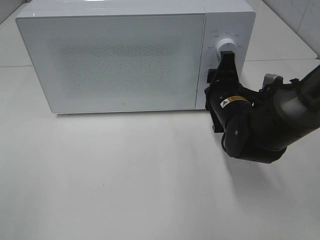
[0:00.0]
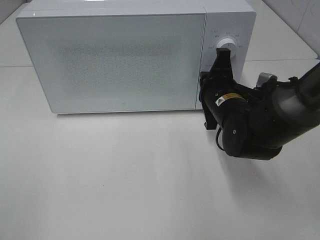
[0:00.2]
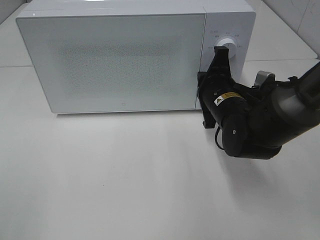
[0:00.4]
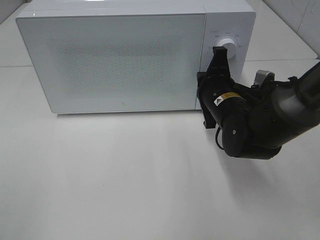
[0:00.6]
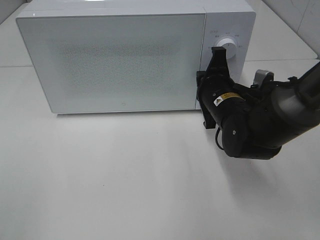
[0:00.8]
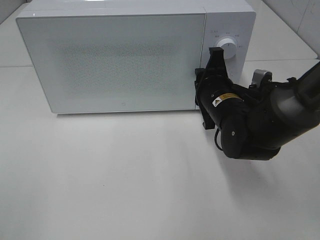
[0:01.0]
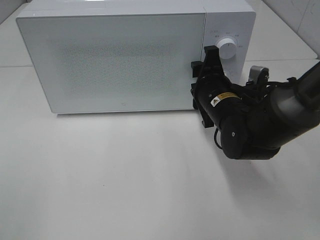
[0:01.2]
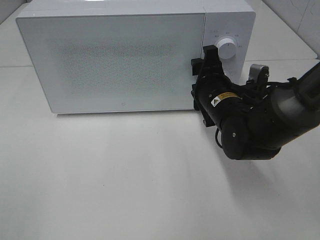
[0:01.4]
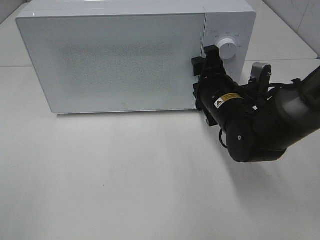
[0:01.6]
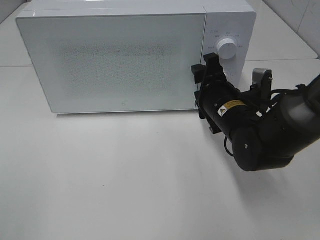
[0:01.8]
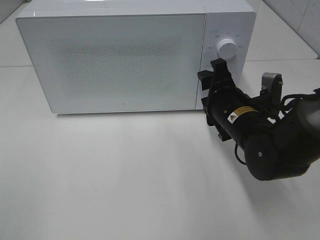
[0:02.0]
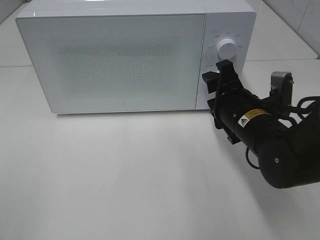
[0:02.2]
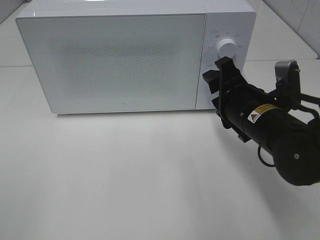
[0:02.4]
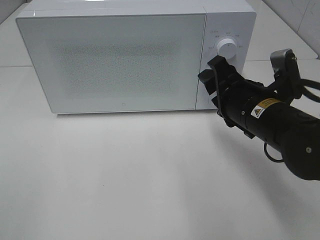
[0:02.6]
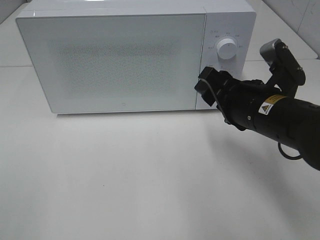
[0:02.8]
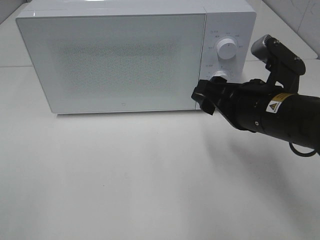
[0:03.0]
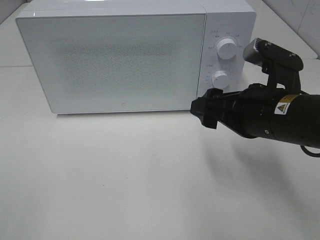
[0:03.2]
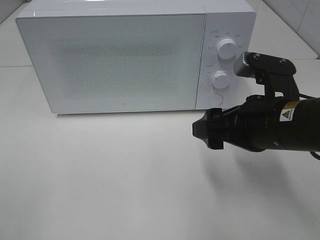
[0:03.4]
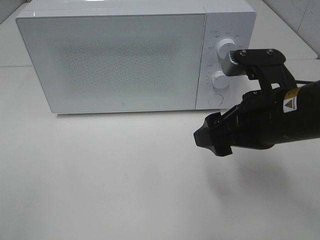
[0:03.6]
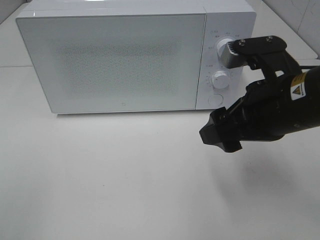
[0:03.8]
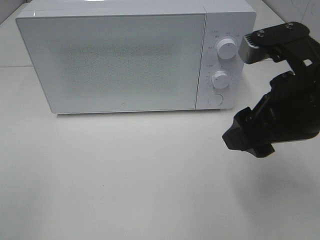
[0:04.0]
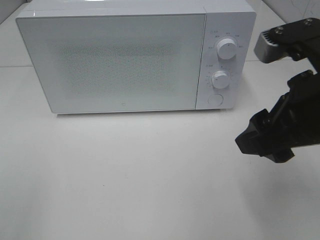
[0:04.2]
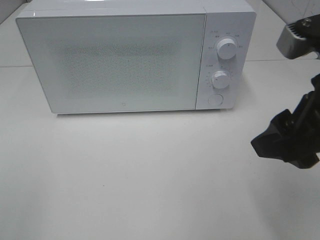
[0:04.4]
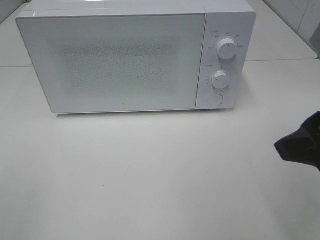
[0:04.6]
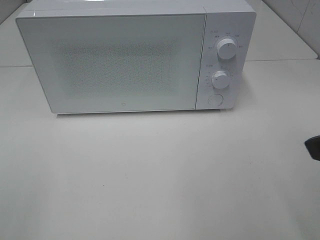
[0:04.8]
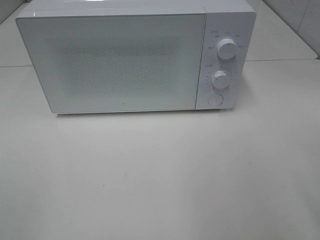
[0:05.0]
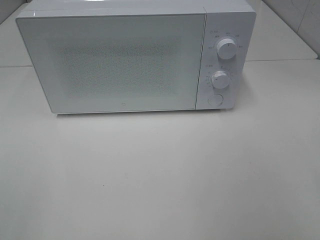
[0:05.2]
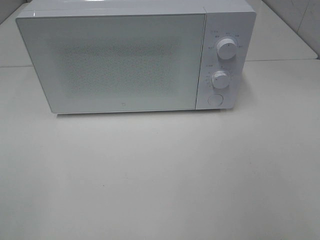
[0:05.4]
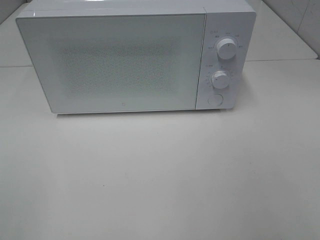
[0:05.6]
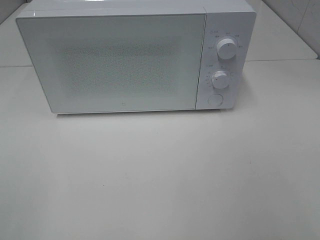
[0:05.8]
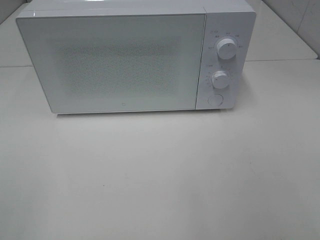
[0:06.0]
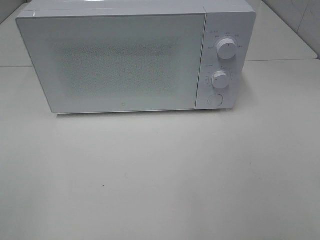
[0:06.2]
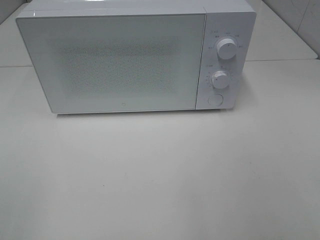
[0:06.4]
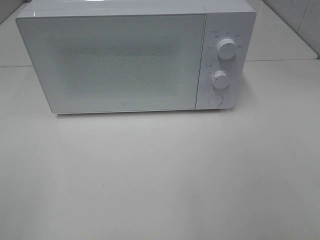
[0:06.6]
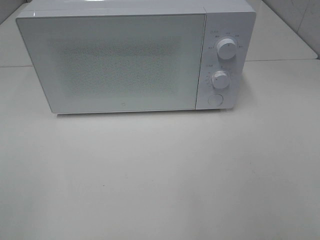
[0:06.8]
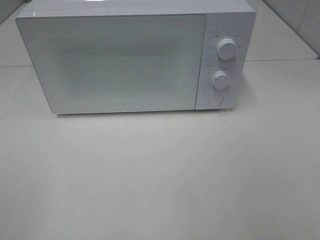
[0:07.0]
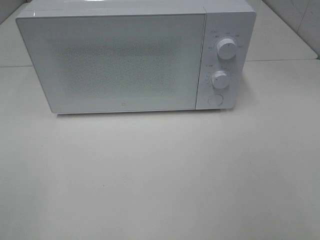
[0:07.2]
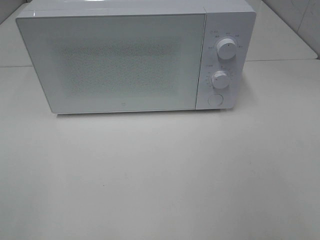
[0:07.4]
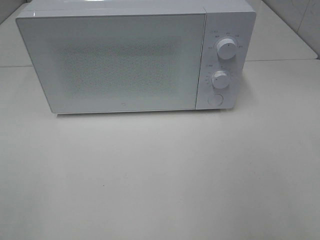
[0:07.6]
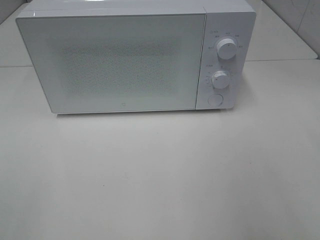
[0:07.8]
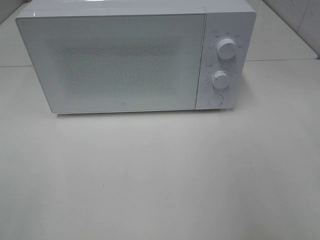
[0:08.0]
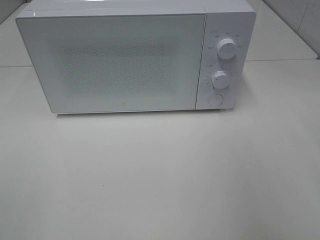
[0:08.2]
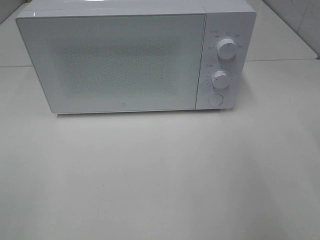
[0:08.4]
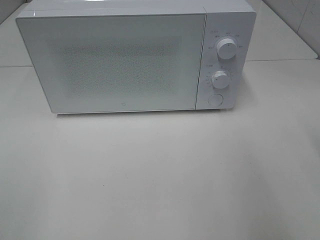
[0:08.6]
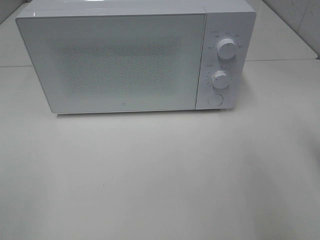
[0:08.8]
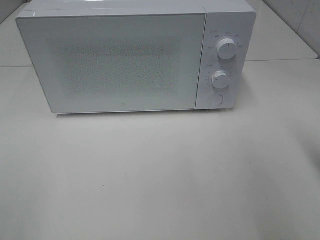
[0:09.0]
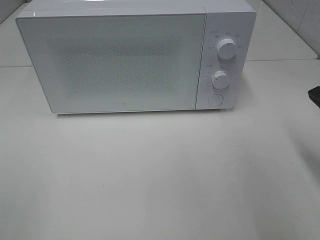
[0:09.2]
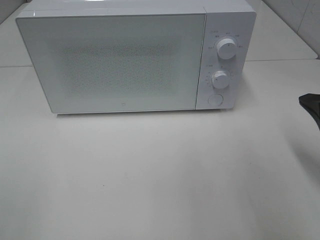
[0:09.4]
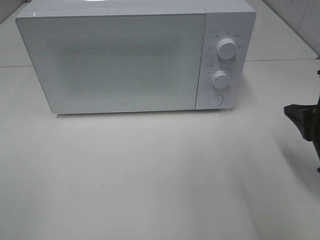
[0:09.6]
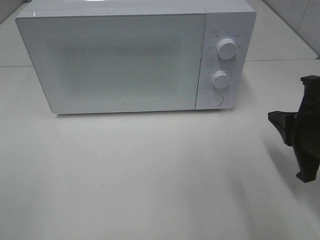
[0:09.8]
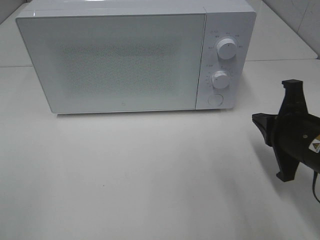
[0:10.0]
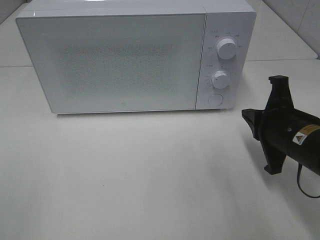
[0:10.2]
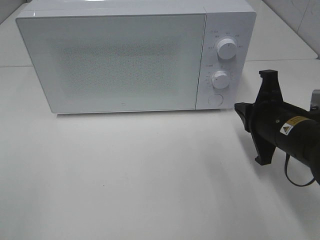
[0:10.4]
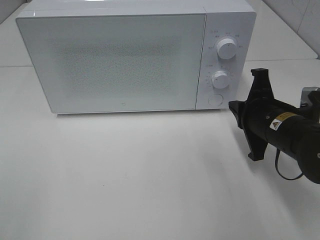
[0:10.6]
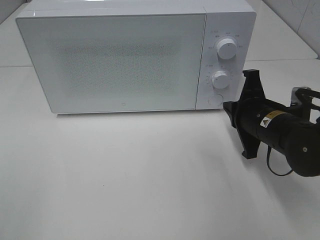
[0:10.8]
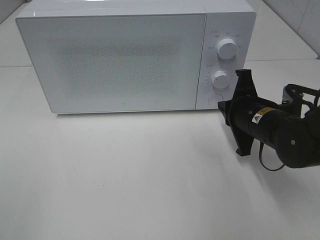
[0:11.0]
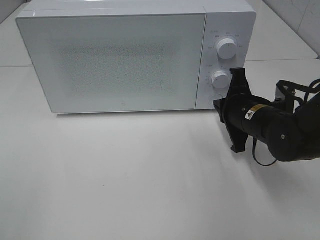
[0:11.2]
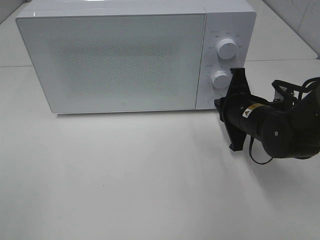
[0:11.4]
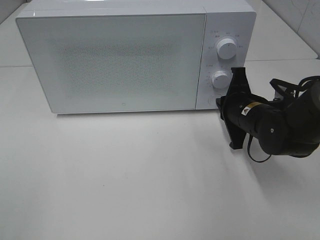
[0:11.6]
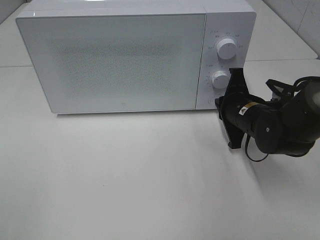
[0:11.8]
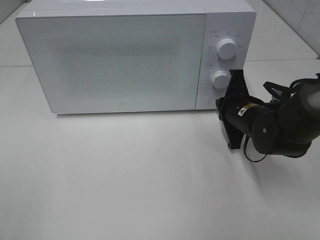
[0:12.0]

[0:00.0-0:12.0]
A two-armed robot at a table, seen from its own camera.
Task of the whole recording: Heat the burger.
0:00.0 to 0:01.6: The right gripper closes, then reopens.
0:01.6 to 0:03.0: The right gripper is displaced backward and upward by roughly 10 cm.
0:03.0 to 0:04.4: The right gripper travels upward and backward by approximately 10 cm.
0:04.4 to 0:06.0: The right gripper travels backward and to the right by about 20 cm.
0:09.0 to 0:10.4: The right gripper travels to the left, downward and forward by approximately 15 cm.
0:10.4 to 0:12.0: The right gripper goes about 10 cm forward.

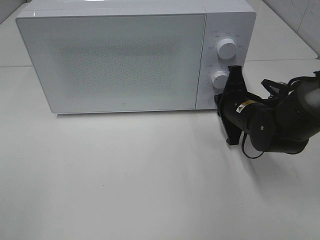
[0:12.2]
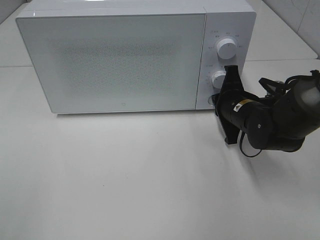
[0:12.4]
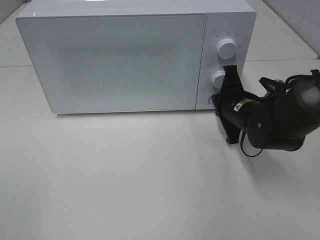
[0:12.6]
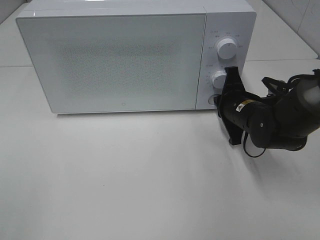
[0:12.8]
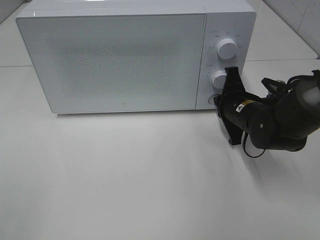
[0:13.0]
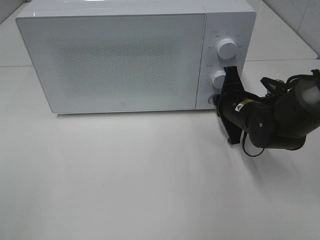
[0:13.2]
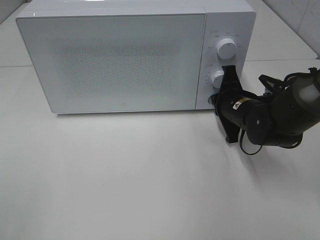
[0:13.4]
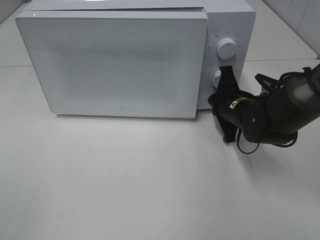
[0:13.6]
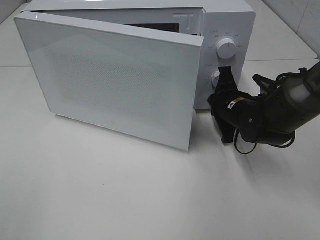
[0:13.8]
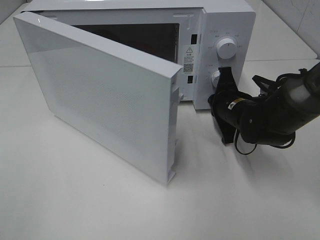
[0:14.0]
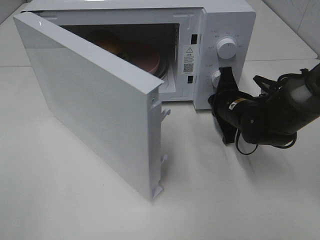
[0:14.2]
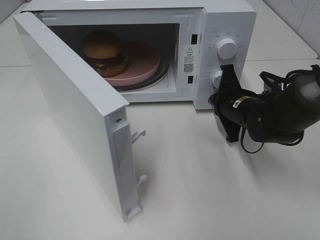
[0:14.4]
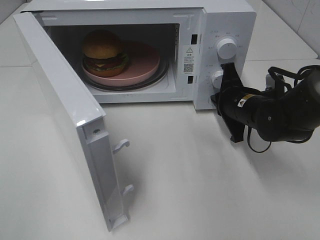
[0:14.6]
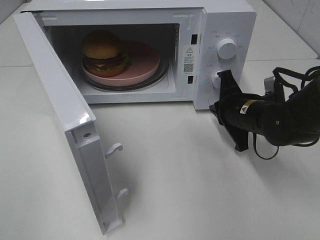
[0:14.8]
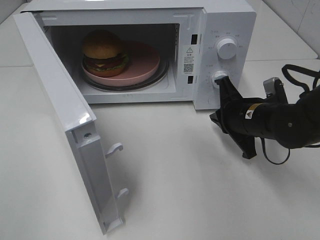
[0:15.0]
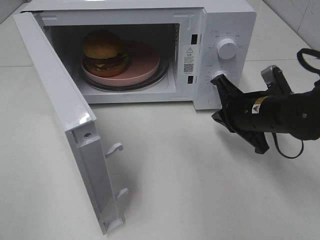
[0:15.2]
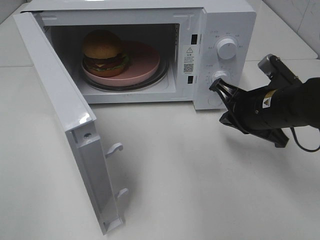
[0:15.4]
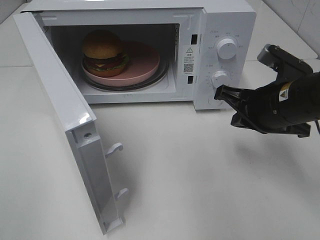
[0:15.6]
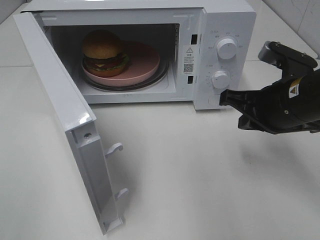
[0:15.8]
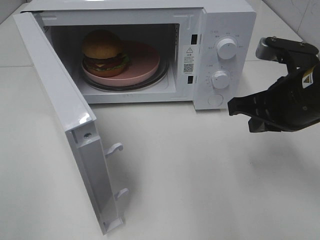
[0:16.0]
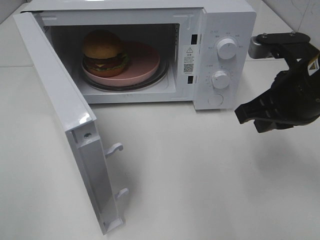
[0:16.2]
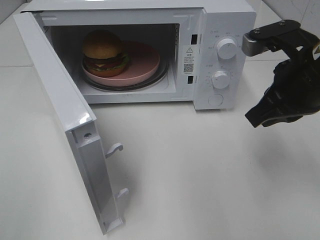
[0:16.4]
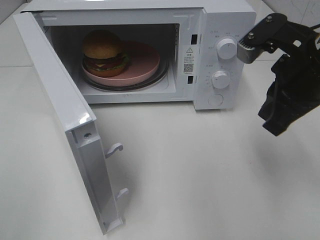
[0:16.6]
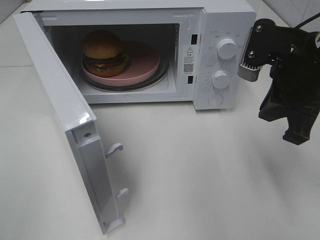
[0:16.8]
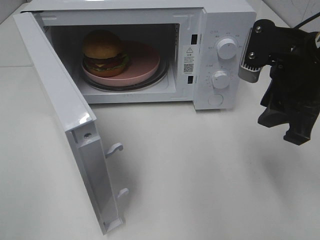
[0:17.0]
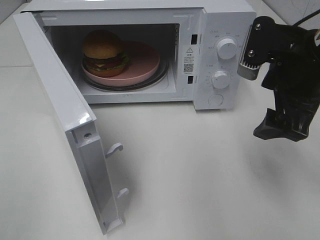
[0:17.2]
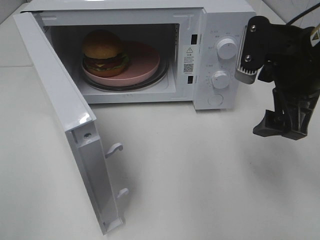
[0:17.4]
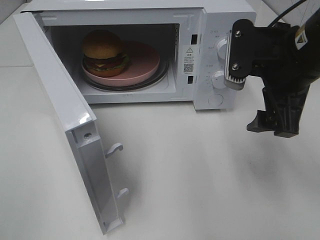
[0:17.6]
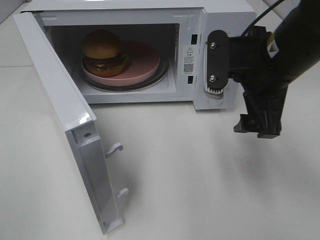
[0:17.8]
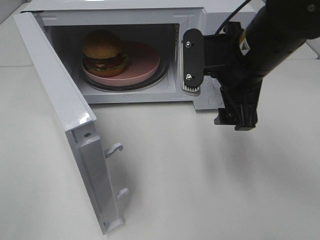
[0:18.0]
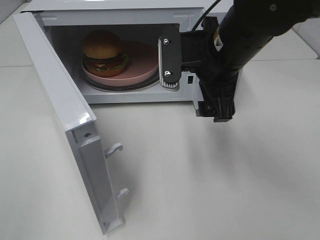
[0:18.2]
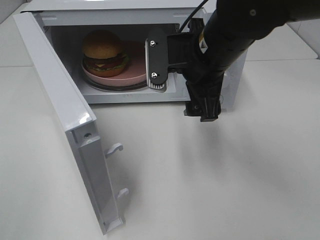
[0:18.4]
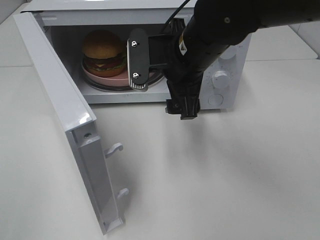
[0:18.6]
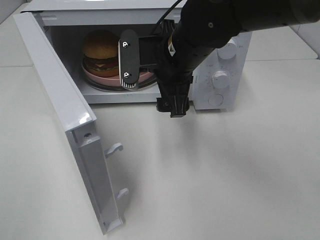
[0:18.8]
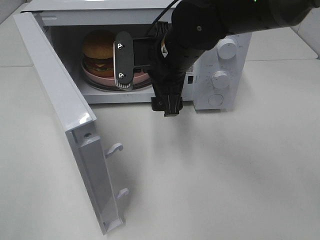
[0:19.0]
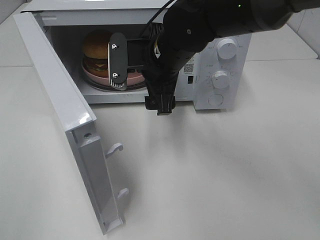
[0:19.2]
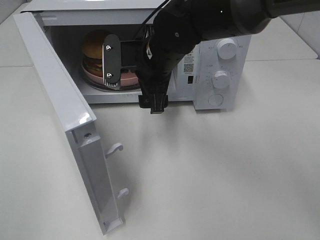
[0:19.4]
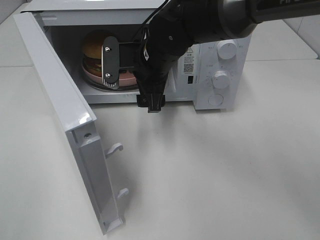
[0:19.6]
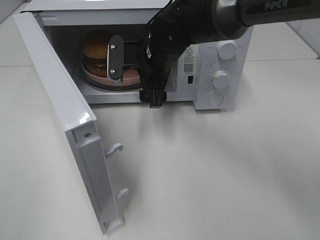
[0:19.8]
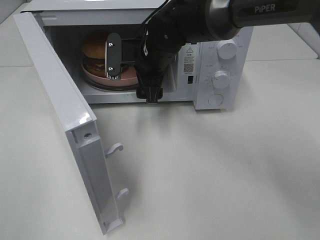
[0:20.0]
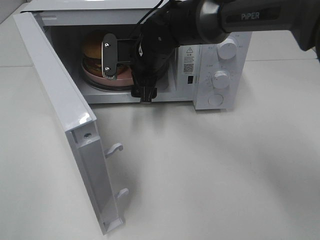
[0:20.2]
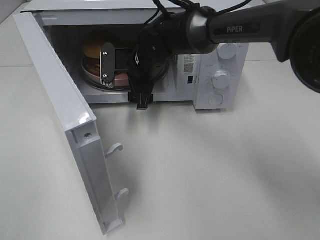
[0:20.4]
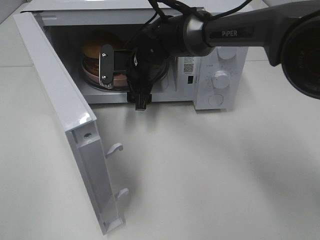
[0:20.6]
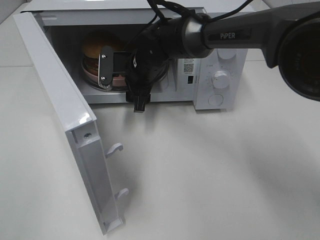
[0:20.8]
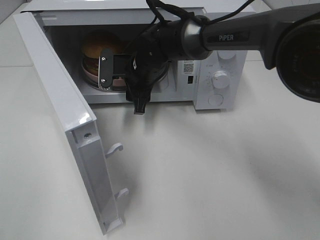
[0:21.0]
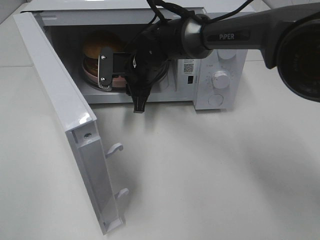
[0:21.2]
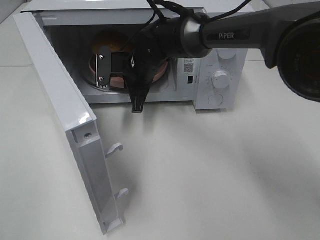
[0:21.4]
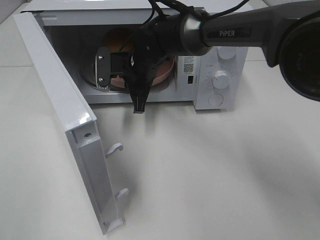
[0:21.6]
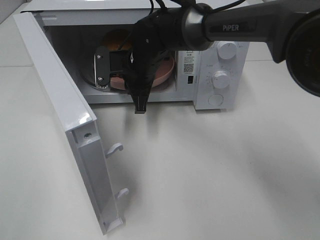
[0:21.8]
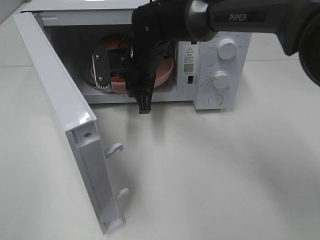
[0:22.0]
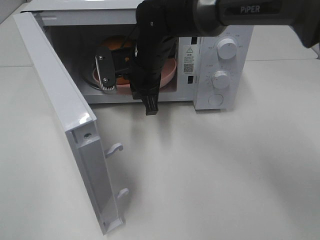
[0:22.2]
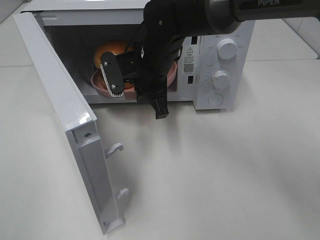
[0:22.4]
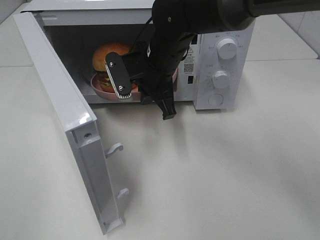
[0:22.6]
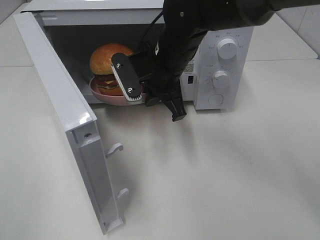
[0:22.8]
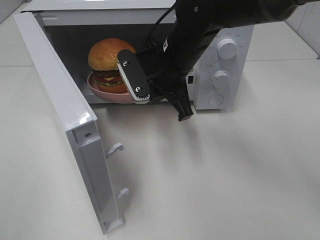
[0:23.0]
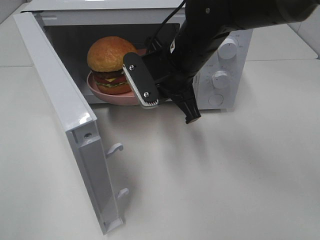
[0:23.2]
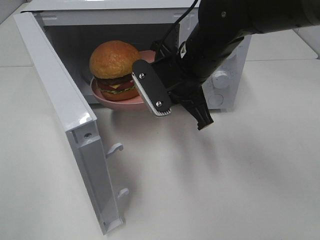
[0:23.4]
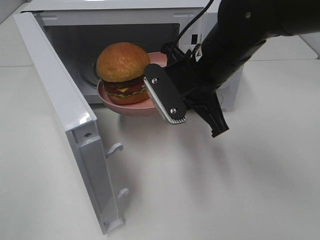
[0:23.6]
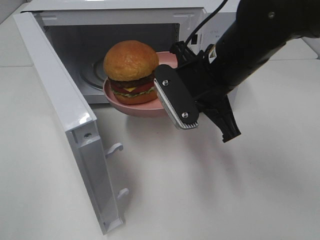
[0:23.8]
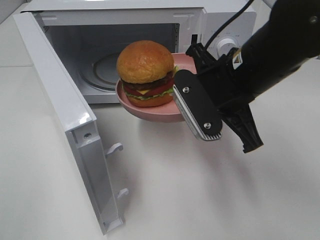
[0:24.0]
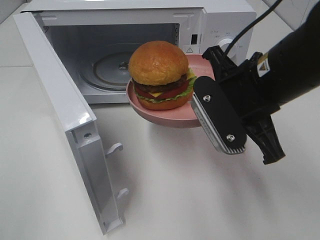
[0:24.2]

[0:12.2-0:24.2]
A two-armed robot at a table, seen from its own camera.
Task of the whole recording: Heat the burger.
Step, 0:12.2 to 0:14.6: Right hand: press the switch.
Step, 0:14.8 to 0:21.4: Right hand: grab the plate with the hamburger.
0:12.2 to 0:13.8: The grippers make only small movements.
0:13.8 to 0:15.2: The right gripper is displaced backward by roughly 5 cm.
0:15.2 to 0:16.6: The right gripper heads upward, covering approximately 15 cm.
0:16.6 to 0:18.2: The right gripper goes about 10 cm to the left, and opens.
0:18.2 to 0:19.8: The right gripper travels forward, to the left and downward by about 15 cm.
0:19.8 to 0:21.2: The right gripper ends up about 5 cm from where it was, and closes up.
0:21.2 to 0:22.6: The right gripper goes some 10 cm backward and upward.
0:22.6 to 0:24.2: The right gripper moves backward and to the right, roughly 20 cm.
